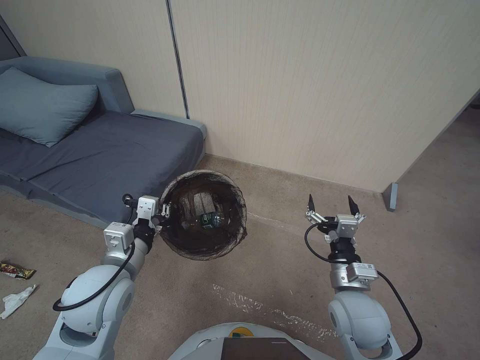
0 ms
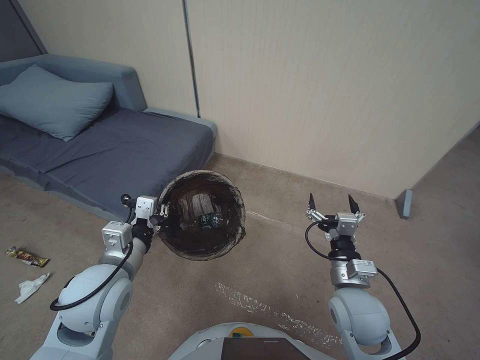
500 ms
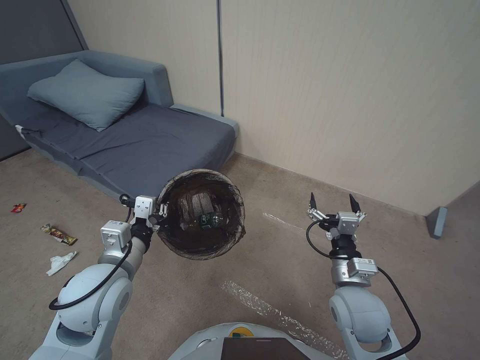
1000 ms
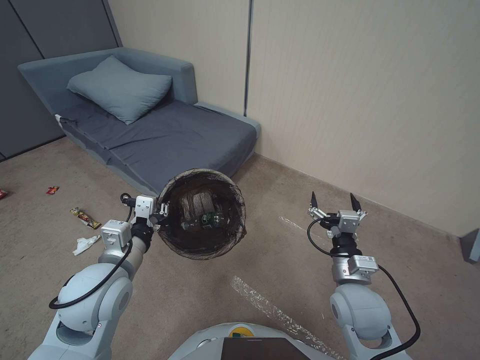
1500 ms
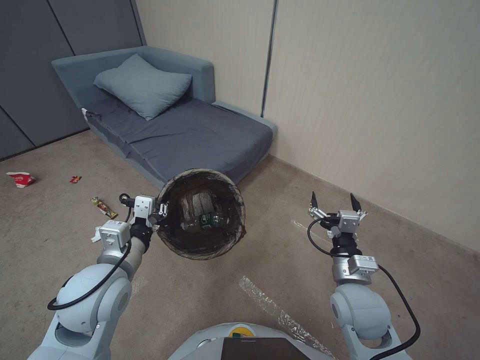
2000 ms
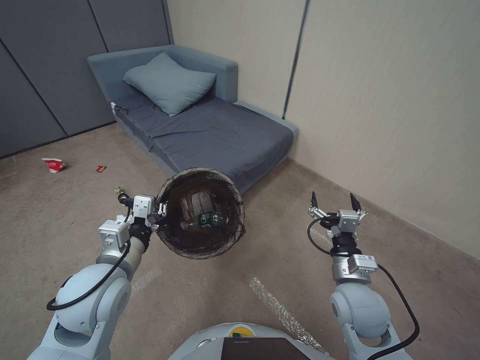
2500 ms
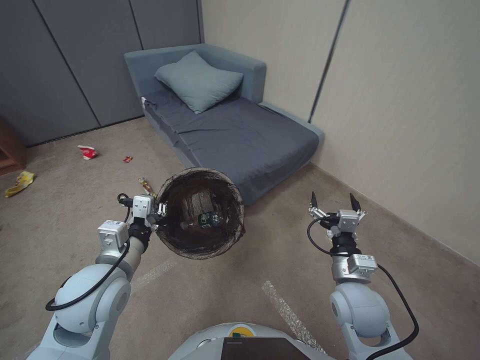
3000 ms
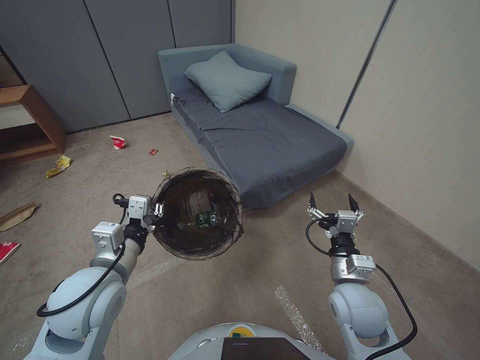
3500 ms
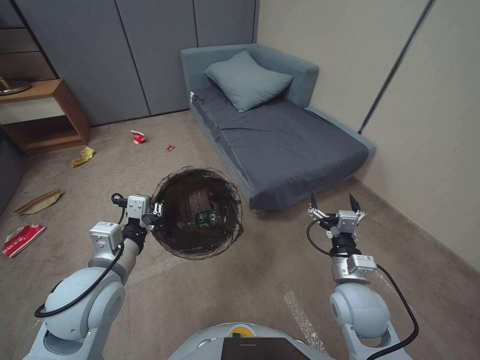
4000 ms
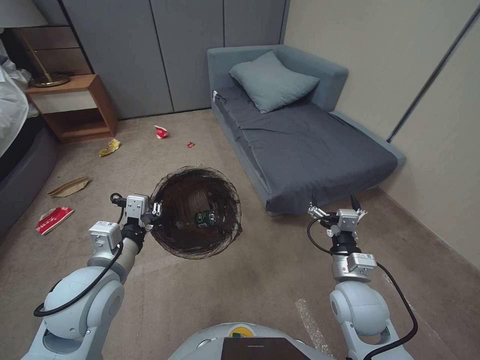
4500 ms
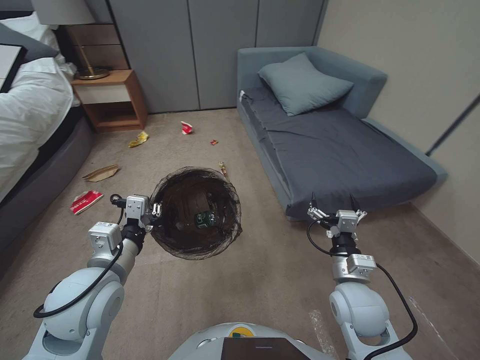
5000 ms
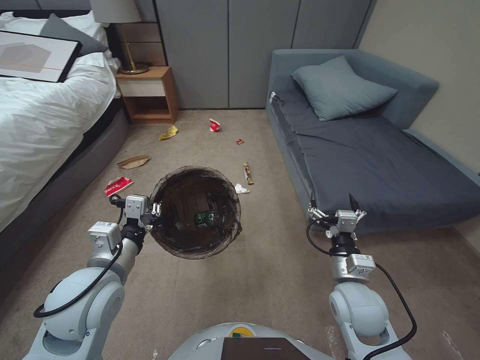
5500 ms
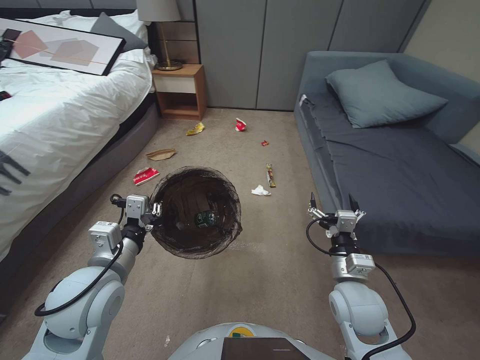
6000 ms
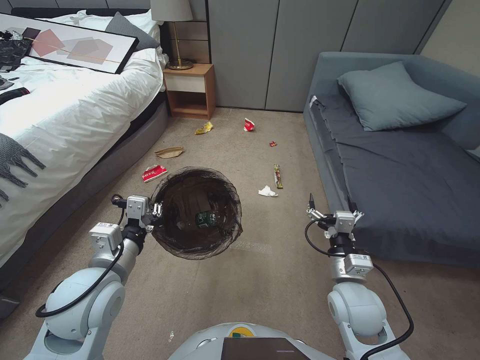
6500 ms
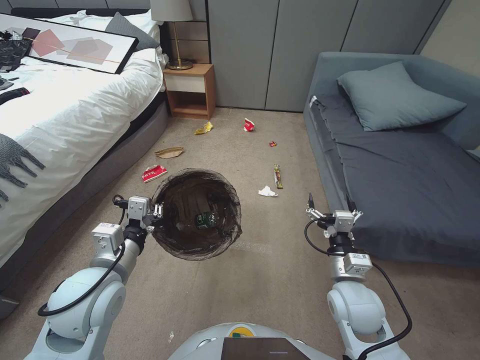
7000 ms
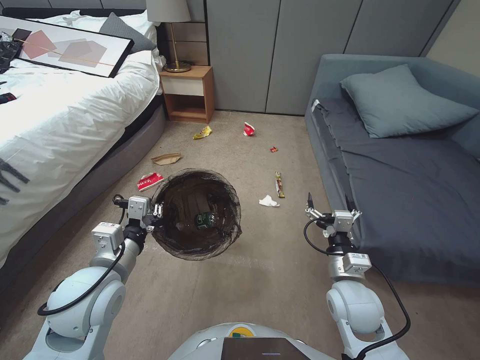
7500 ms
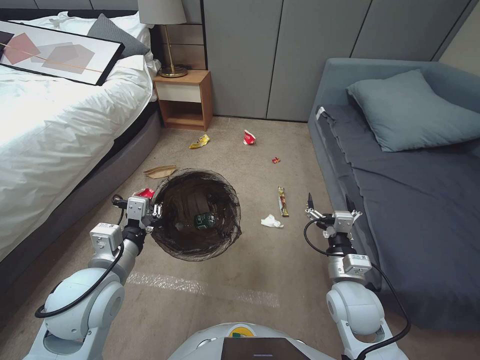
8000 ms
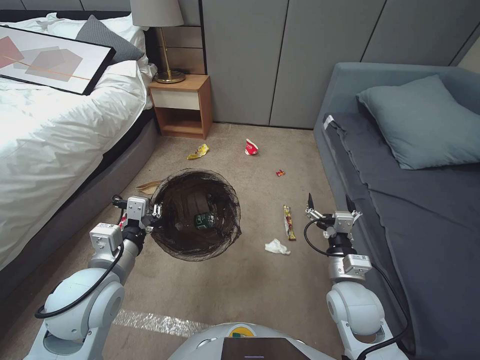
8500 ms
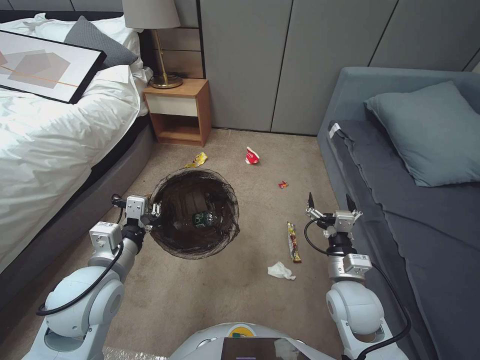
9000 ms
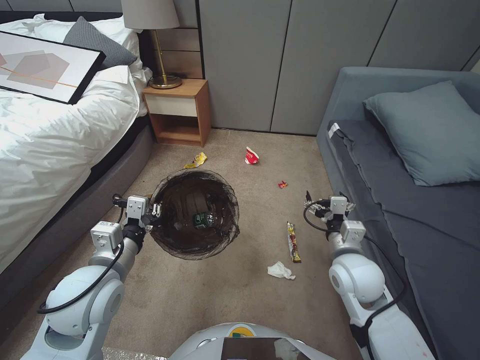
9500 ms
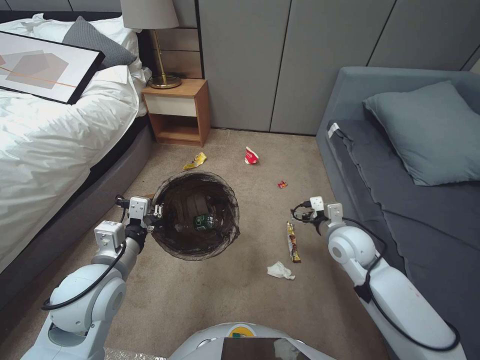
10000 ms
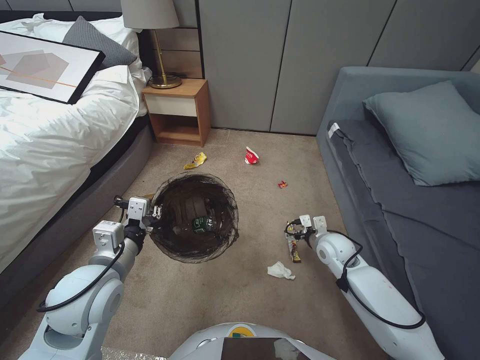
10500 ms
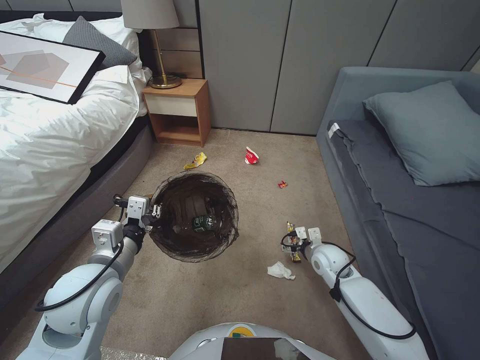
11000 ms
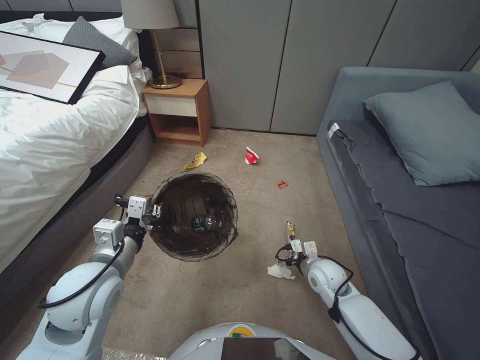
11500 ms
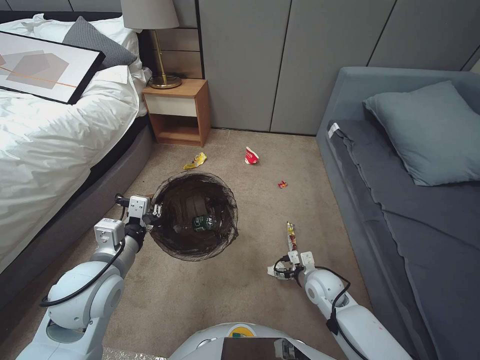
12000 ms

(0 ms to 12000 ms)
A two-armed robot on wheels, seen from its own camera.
Task of the whole recording: Pick up the trash bin, then pick up the garbage from the floor and place it into the trash bin.
8000 ms - 10000 ms: The right gripper goes about 10 cm forward.
10000 ms - 12000 ms: The right gripper travels downward by about 15 cm.

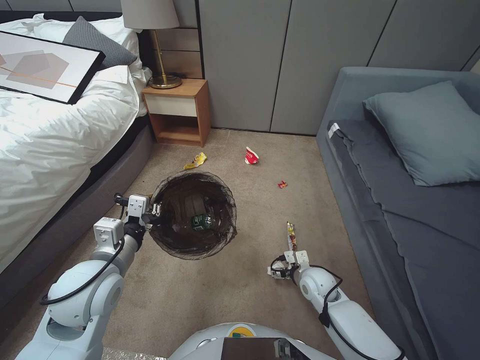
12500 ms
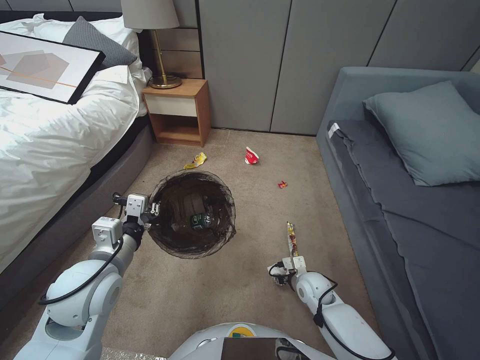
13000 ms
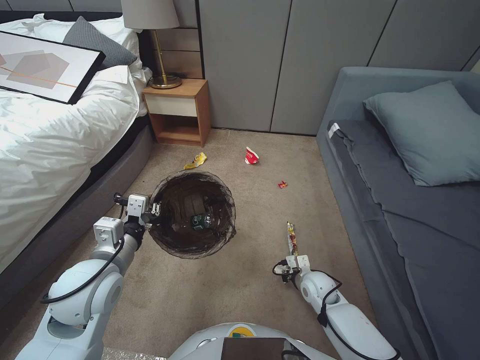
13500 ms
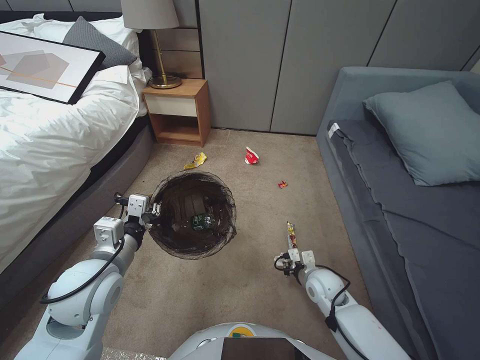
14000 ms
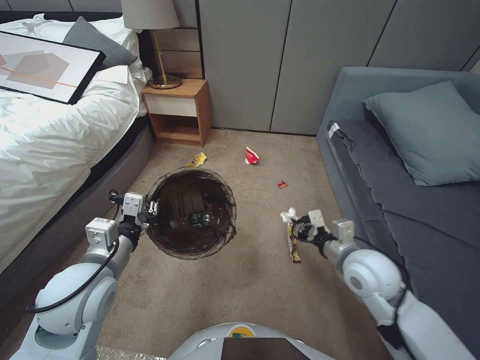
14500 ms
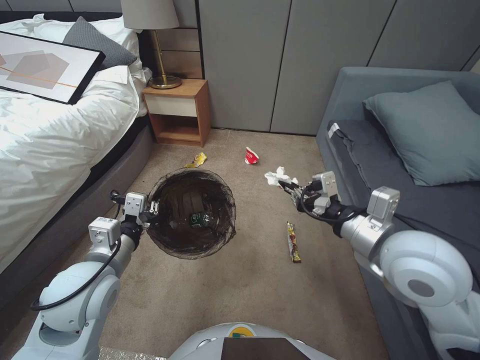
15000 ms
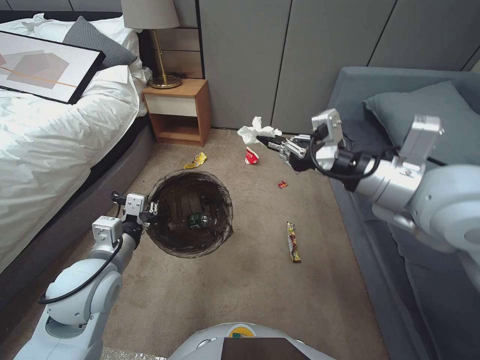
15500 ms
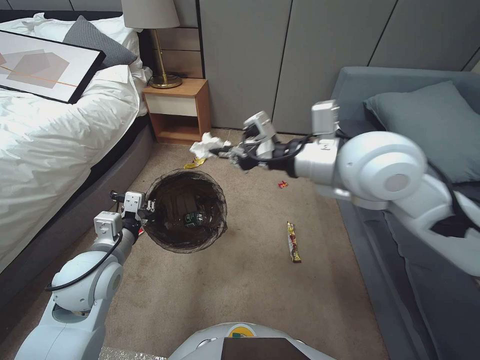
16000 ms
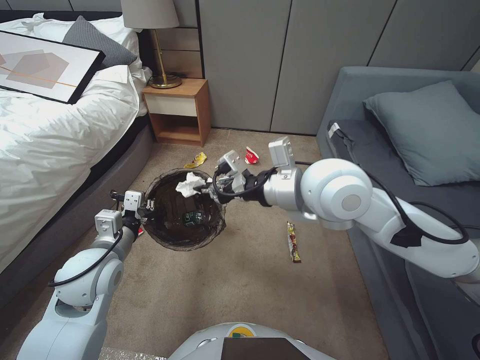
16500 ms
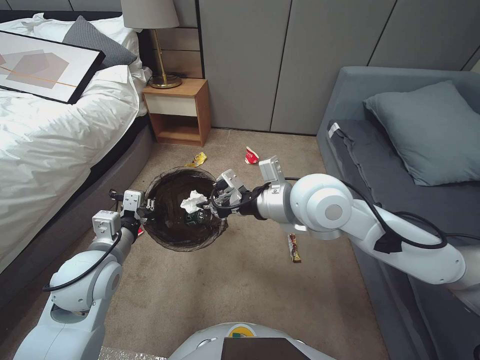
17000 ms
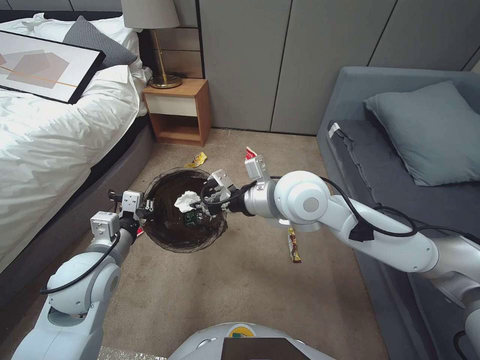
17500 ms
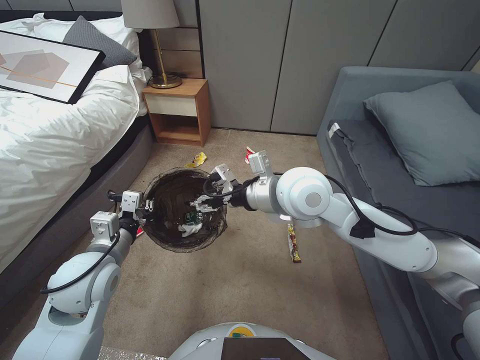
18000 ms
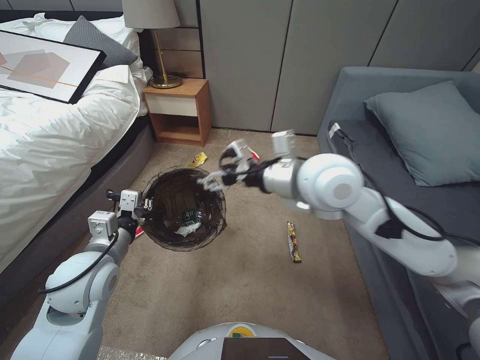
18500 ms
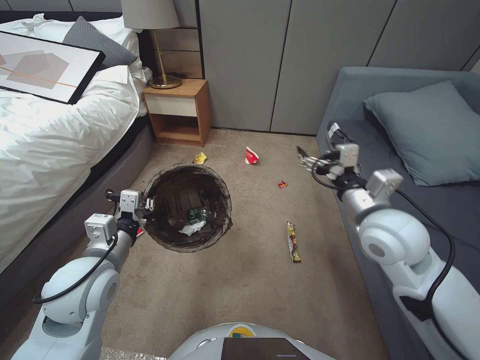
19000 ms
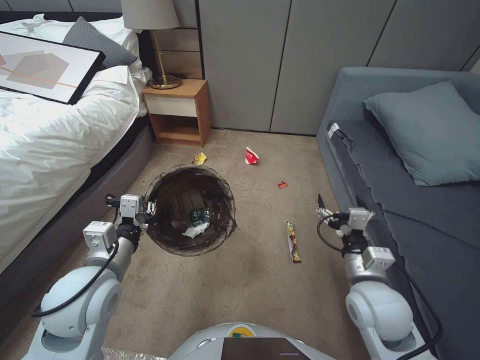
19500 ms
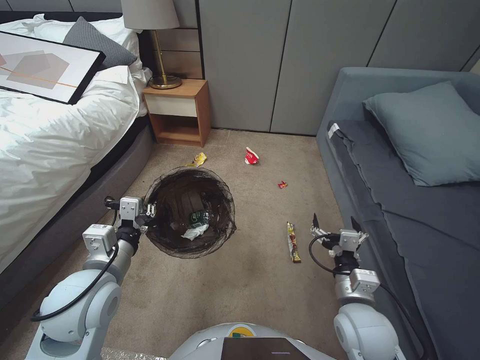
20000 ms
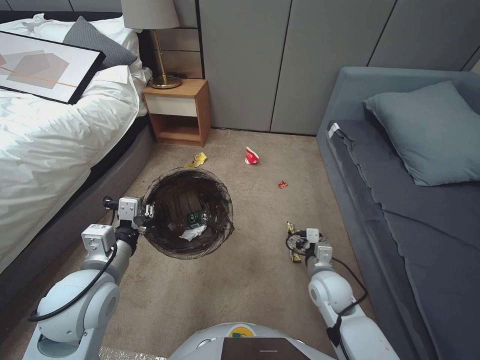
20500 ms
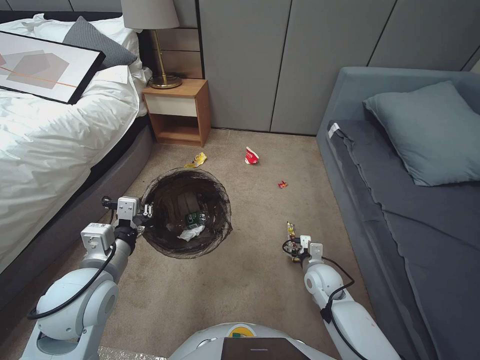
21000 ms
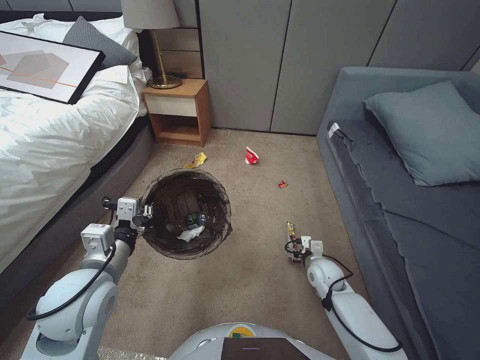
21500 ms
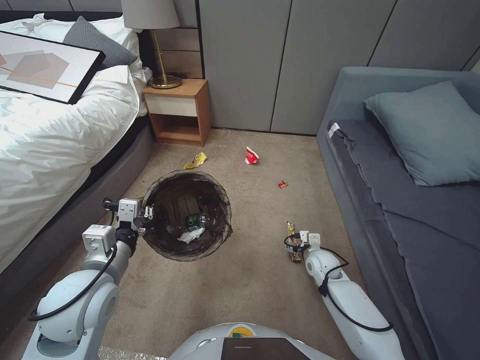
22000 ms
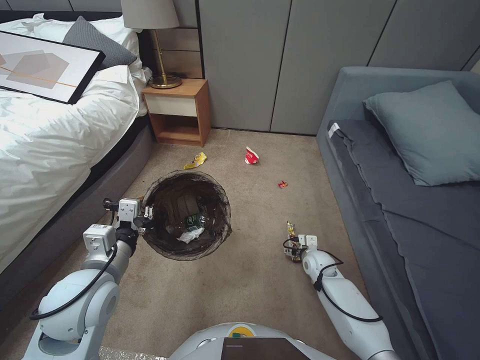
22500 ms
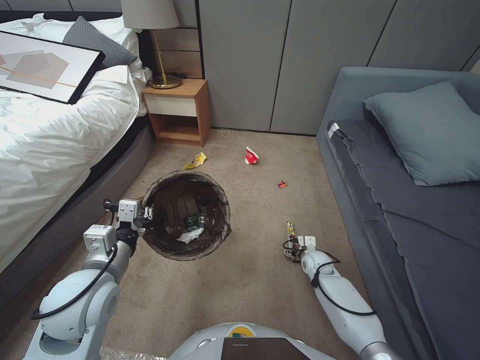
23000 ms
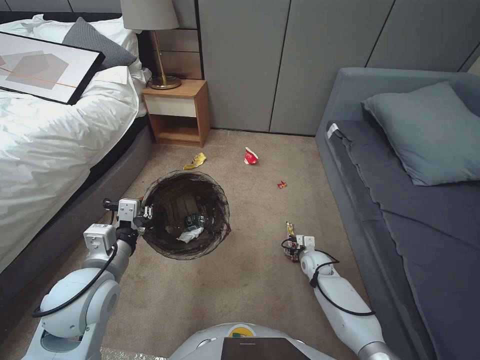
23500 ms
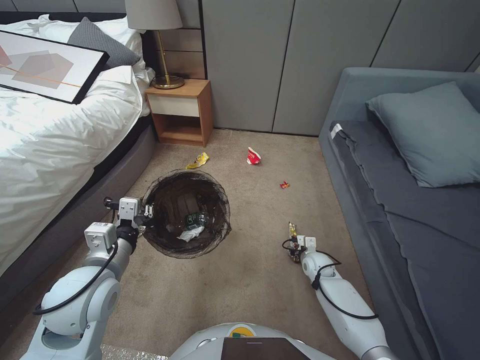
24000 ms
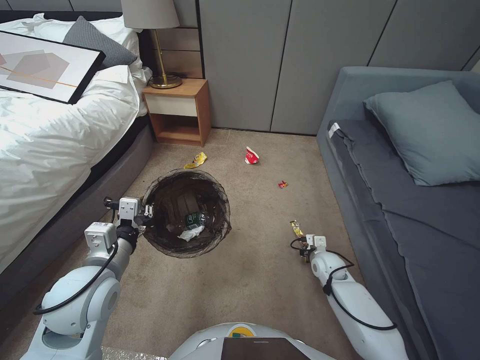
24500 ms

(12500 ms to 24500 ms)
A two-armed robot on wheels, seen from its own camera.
Task of the whole recording: Pick up the trash bin, then pick up the garbage from the floor and place it into the trash bin.
12500 ms - 14500 ms: The right gripper heads upward, covering roughly 15 cm, and closes its fingers.
14500 ms - 16500 ms: The right gripper heads upward and to the left, covering some 30 cm.
16500 ms - 18500 ms: The right gripper opens its fingers.
18500 ms - 20500 ms: The right gripper heads downward, covering about 30 cm.
20500 ms - 22500 ms: The right gripper moves downward and forward, some 15 cm.
22500 ms - 24500 ms: The right gripper closes up.

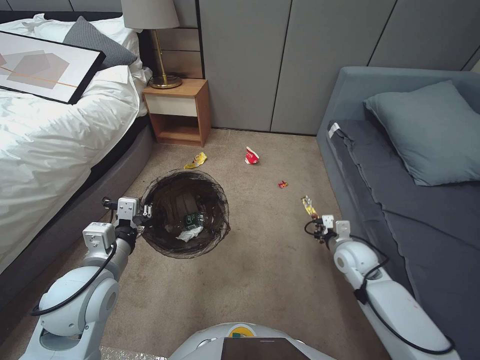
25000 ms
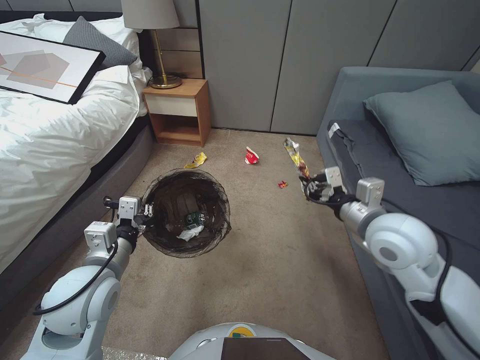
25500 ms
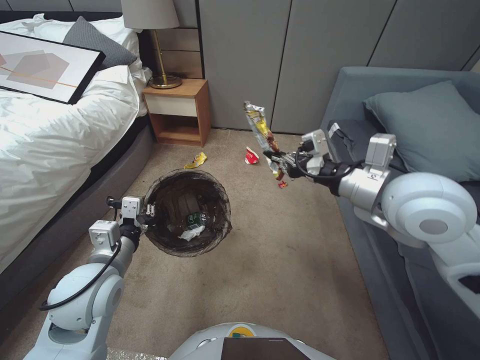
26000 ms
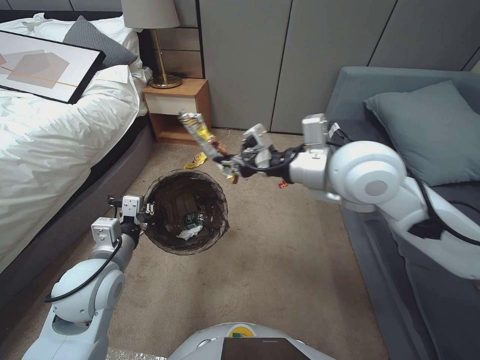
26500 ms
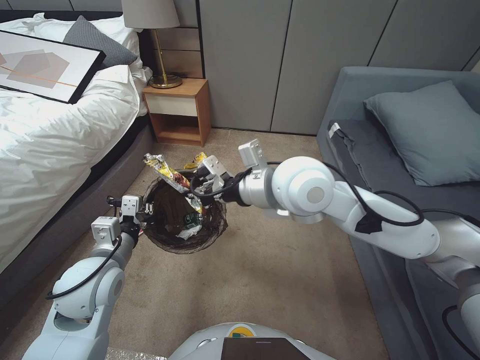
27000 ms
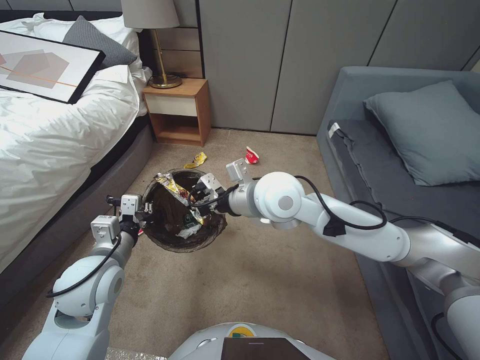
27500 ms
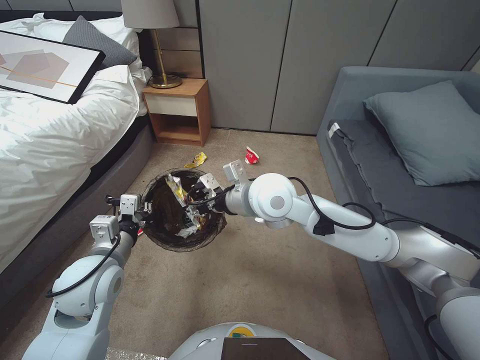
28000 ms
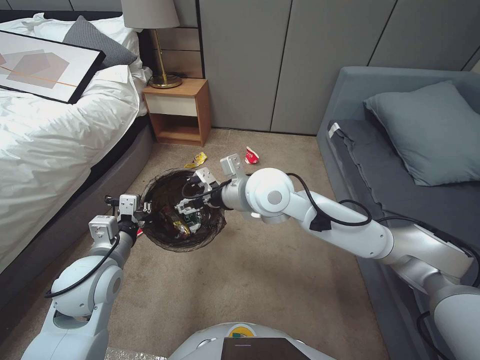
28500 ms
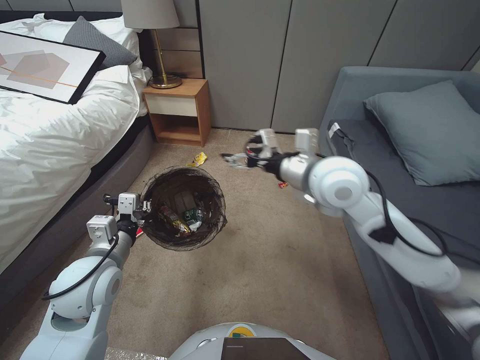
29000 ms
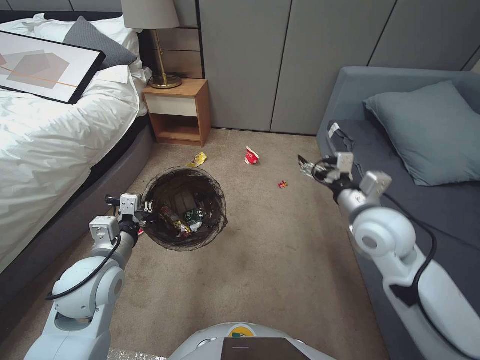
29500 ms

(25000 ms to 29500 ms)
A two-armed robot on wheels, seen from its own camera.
Task of the whole recording: Pick up the trash bin, then pick up the garbage from the floor and place it into the trash bin.
25000 ms - 27000 ms: The right gripper is displaced upward and to the left by some 40 cm.
27000 ms - 29500 ms: The right gripper shifts roughly 20 cm to the right and downward, and opens its fingers.
